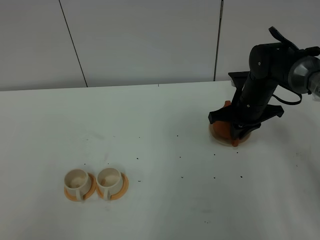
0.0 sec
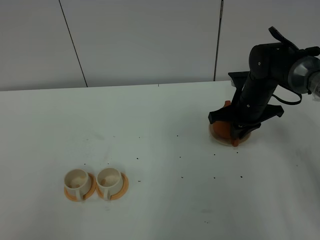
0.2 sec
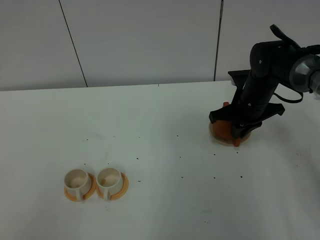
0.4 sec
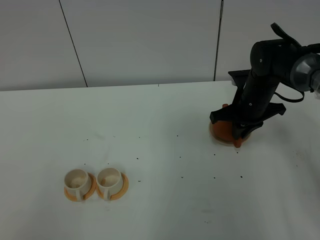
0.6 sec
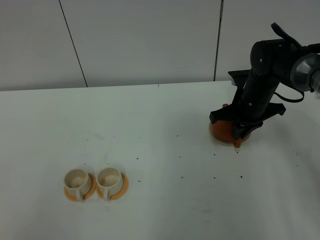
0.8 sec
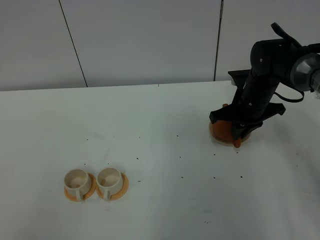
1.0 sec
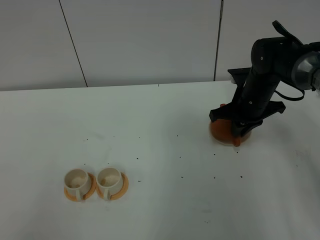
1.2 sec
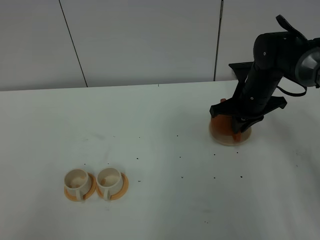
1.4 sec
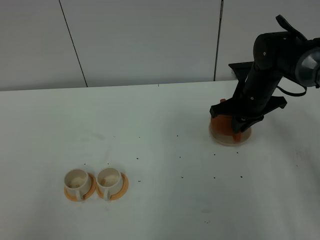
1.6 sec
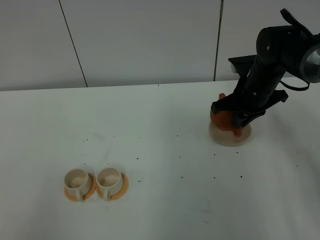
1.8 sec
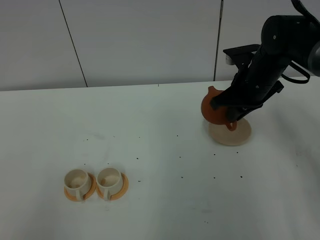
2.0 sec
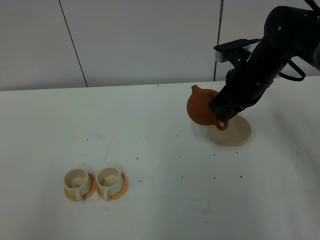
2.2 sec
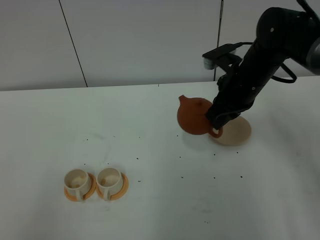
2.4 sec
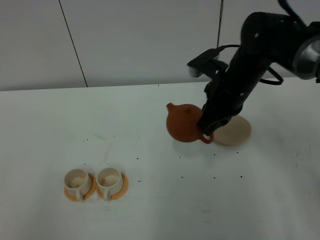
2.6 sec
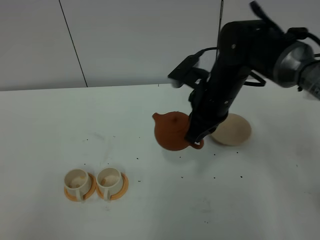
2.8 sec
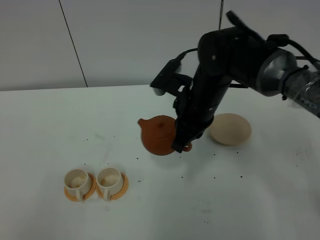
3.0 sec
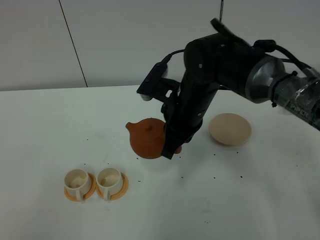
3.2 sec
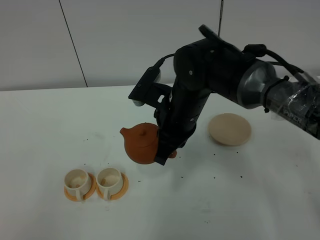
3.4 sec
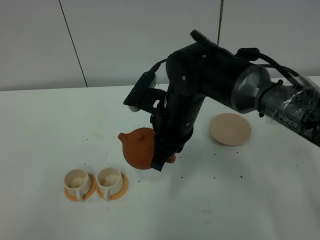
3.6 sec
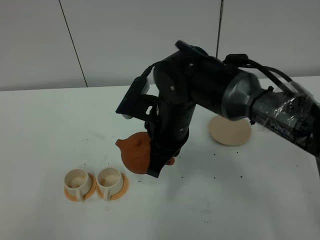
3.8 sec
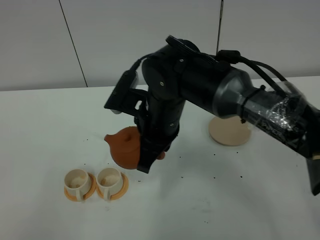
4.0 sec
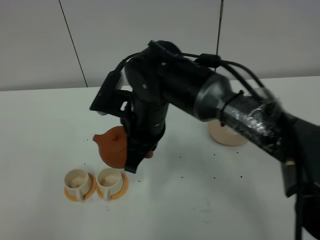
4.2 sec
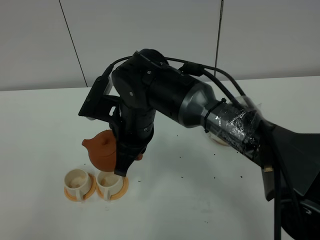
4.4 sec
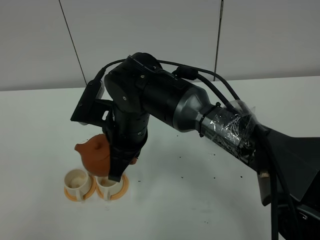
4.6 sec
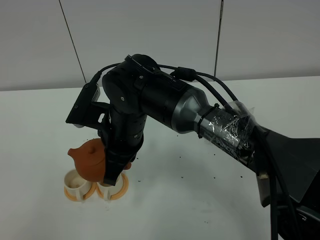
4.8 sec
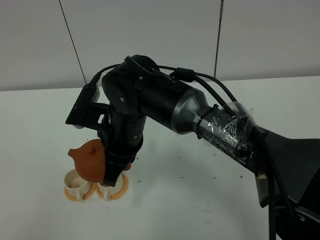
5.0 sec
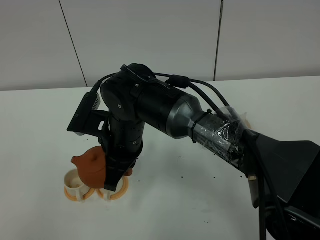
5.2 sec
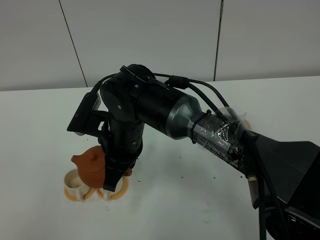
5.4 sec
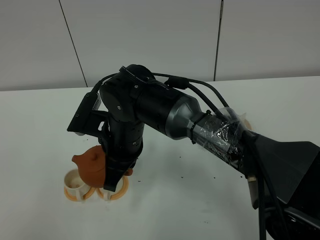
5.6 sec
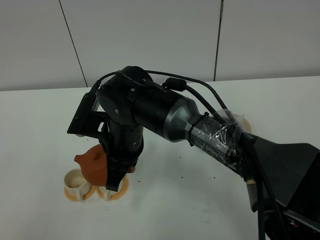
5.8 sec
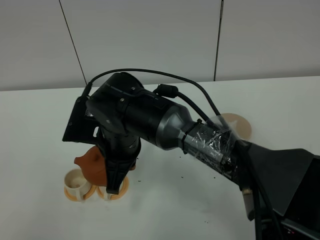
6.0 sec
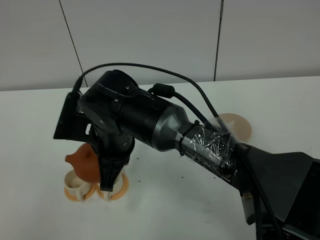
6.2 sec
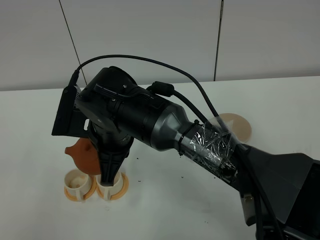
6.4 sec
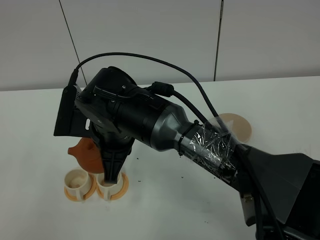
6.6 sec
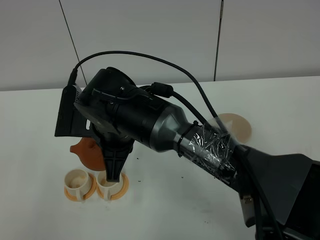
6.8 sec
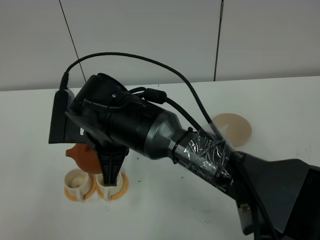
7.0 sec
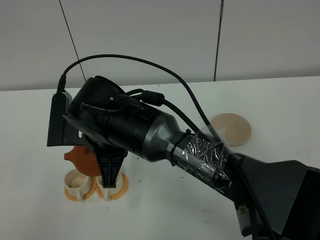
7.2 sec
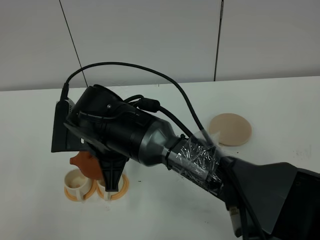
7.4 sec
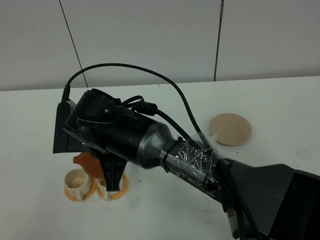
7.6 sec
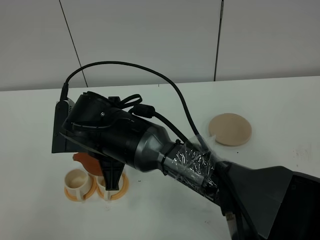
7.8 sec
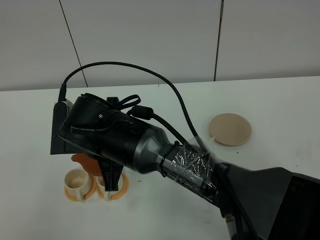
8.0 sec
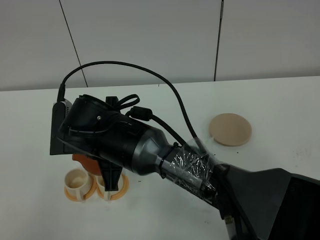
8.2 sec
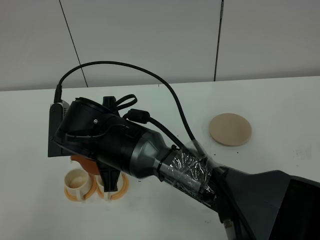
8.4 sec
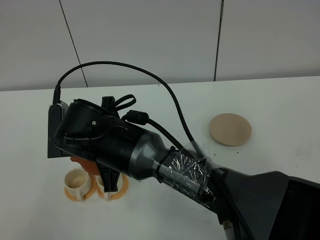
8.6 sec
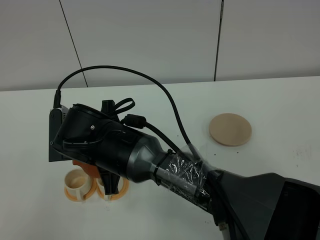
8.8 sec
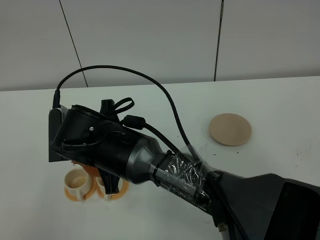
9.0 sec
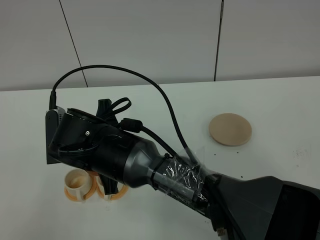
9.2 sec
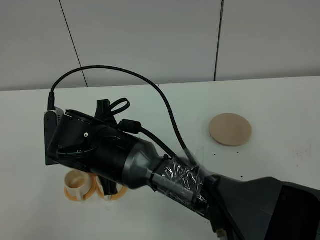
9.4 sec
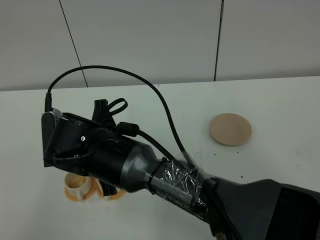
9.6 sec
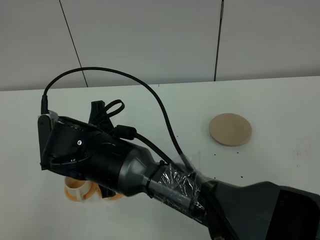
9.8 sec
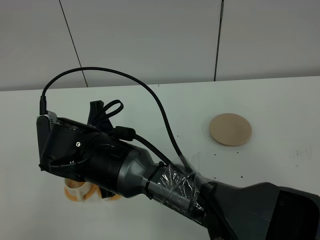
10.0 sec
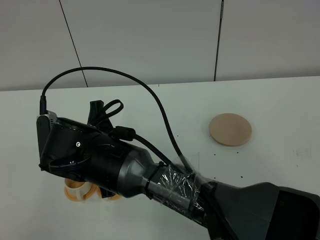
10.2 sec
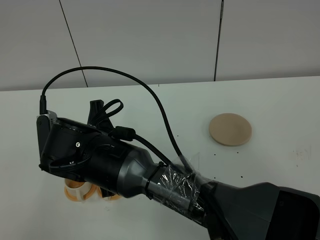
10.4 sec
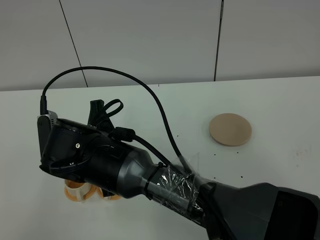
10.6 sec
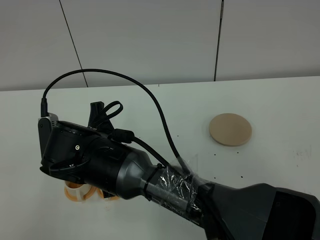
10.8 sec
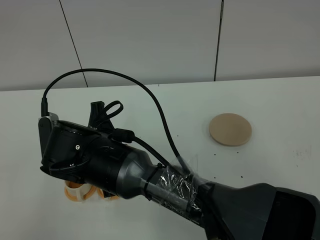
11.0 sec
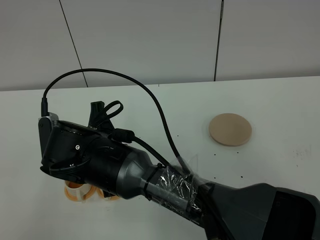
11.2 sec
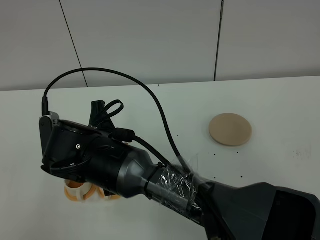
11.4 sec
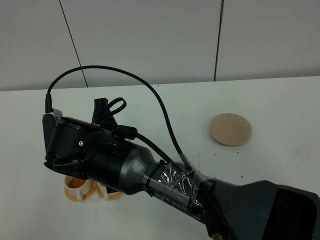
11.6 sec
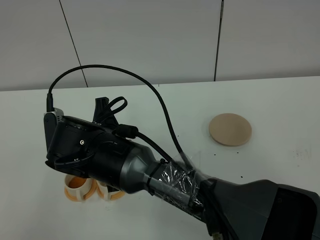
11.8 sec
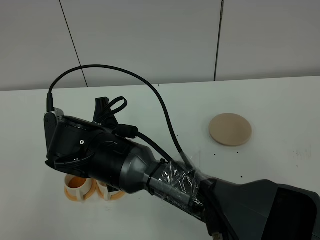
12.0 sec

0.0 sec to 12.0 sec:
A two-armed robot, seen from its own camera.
Task of the whole recording: grasp the brown teapot and pour the tea into the two white teacups one by one, put the brown teapot back in its original place.
0.0 sec to 1.6 sec: The grippers make only small movements.
1.6 sec to 3.0 sec: The right gripper shifts approximately 15 cm to the left, backward and upward.
3.0 sec to 4.4 sec: The right gripper moves to the left, some 10 cm.
6.0 sec to 7.6 sec: The grippers move only a little.
7.6 sec to 10.4 sec: The grippers stay close to where they were, moving slightly.
10.4 sec to 12.0 sec: Neither gripper changes place.

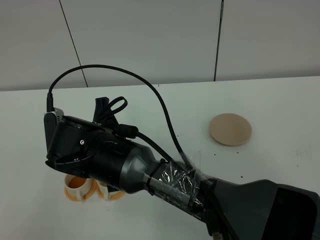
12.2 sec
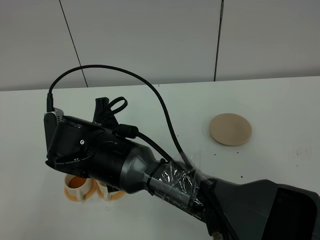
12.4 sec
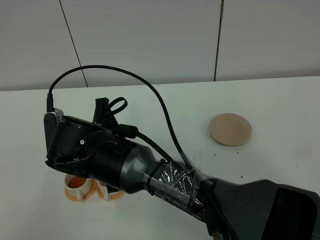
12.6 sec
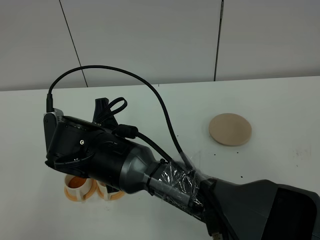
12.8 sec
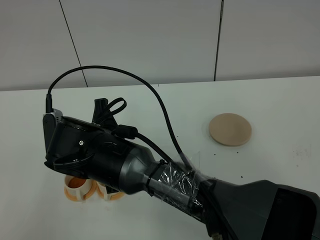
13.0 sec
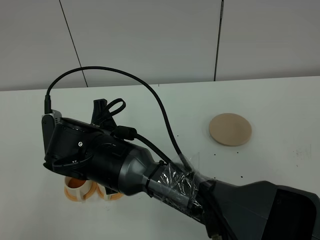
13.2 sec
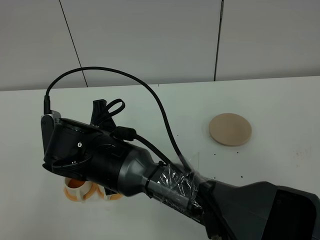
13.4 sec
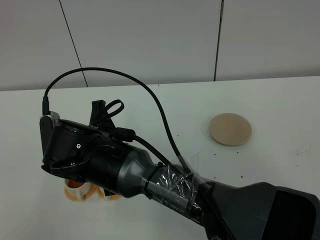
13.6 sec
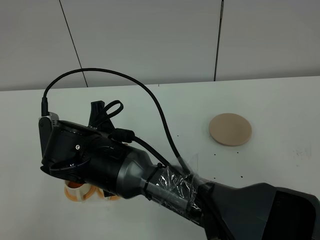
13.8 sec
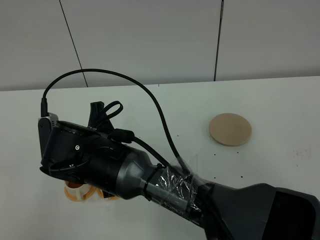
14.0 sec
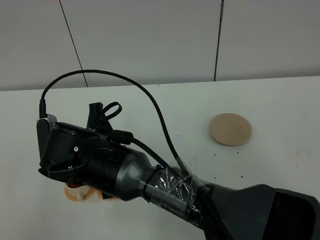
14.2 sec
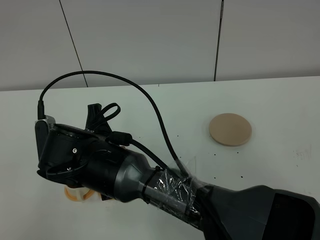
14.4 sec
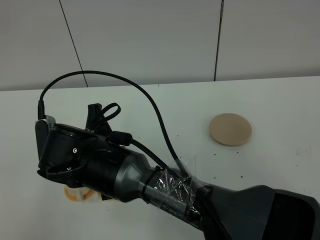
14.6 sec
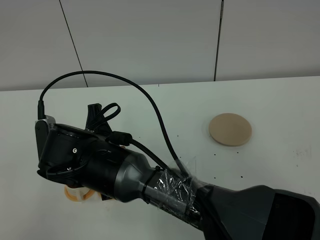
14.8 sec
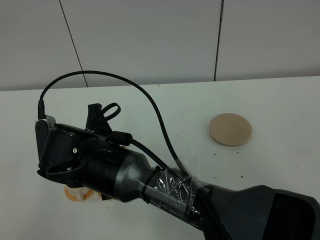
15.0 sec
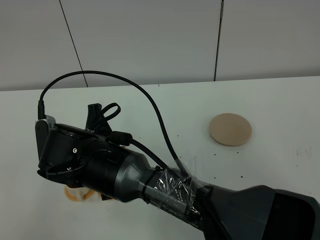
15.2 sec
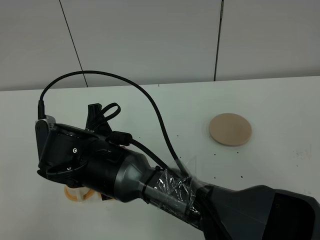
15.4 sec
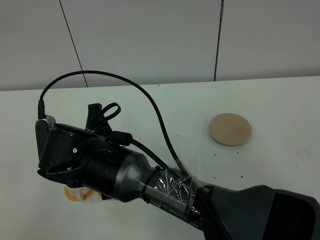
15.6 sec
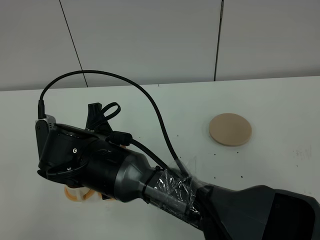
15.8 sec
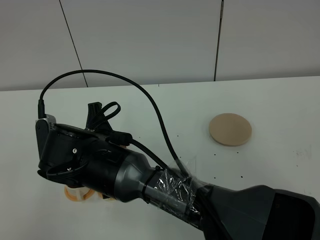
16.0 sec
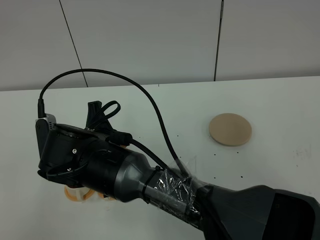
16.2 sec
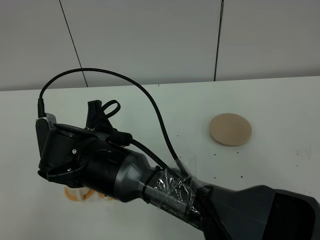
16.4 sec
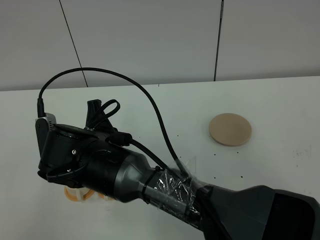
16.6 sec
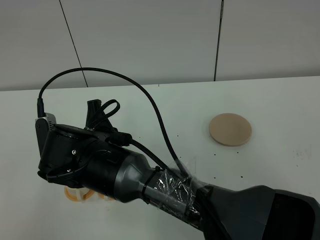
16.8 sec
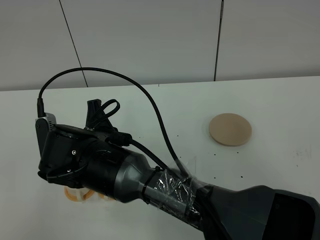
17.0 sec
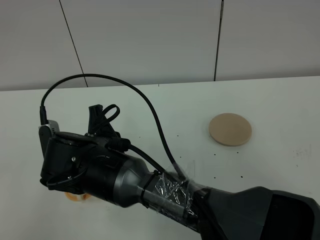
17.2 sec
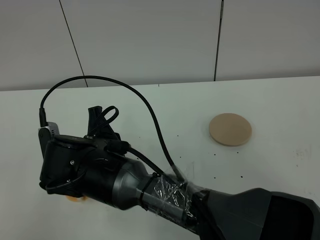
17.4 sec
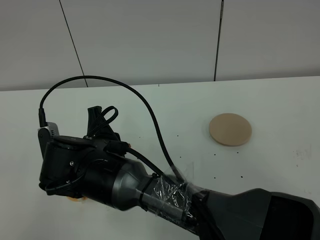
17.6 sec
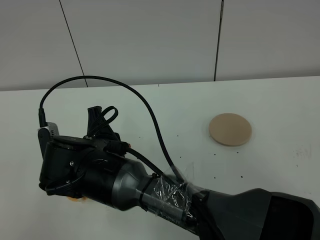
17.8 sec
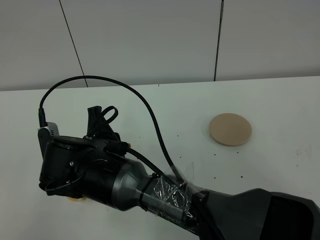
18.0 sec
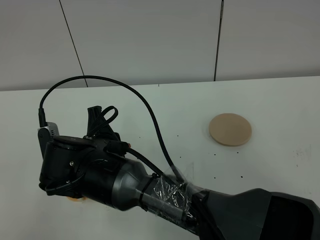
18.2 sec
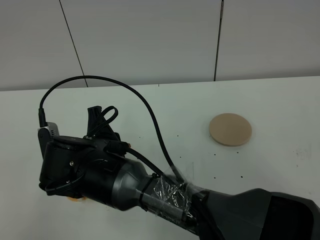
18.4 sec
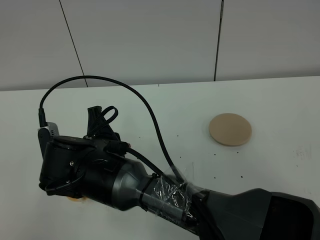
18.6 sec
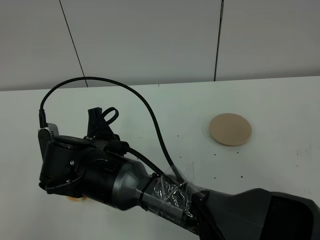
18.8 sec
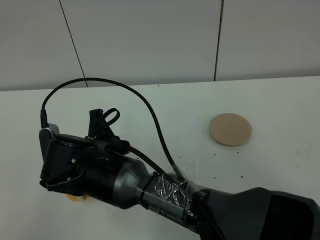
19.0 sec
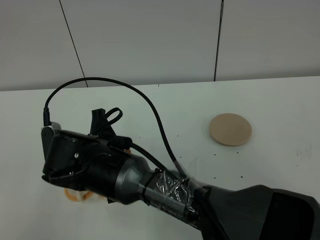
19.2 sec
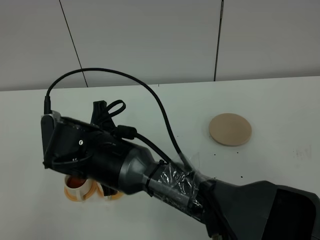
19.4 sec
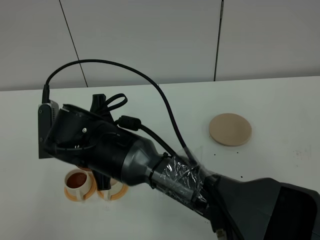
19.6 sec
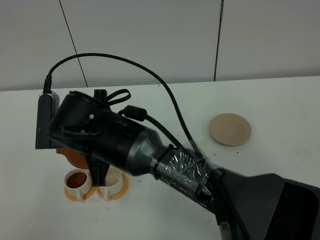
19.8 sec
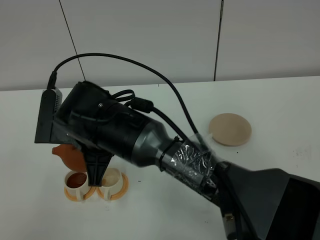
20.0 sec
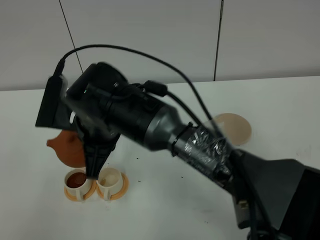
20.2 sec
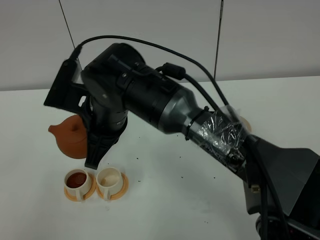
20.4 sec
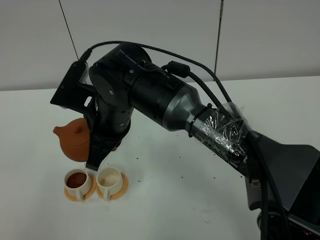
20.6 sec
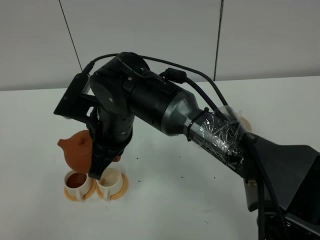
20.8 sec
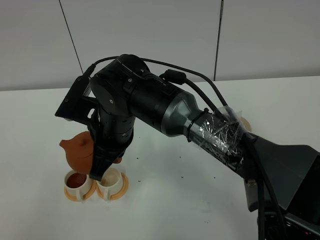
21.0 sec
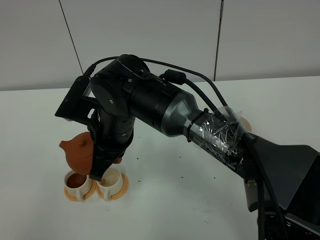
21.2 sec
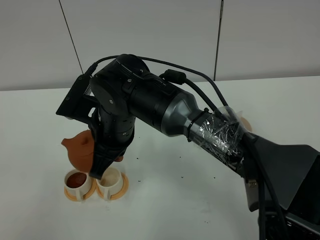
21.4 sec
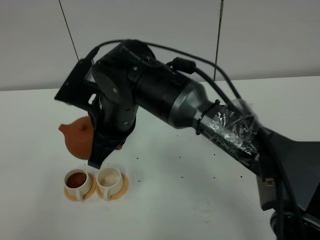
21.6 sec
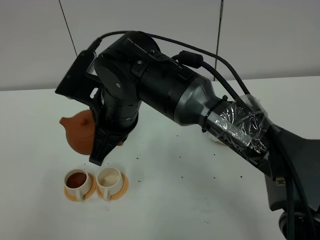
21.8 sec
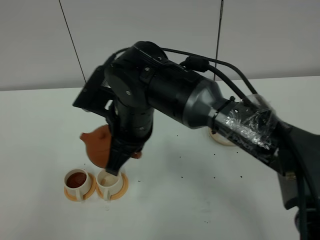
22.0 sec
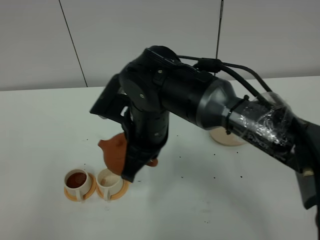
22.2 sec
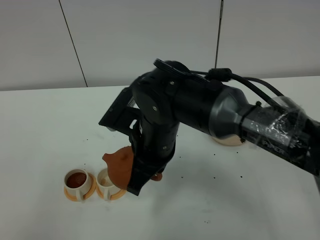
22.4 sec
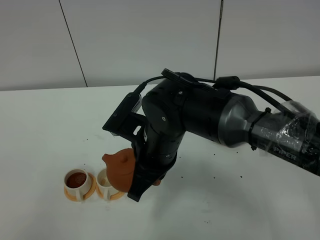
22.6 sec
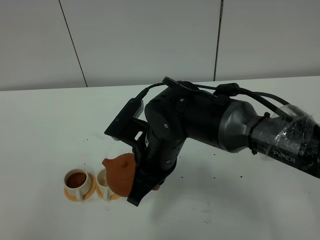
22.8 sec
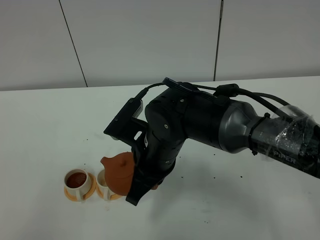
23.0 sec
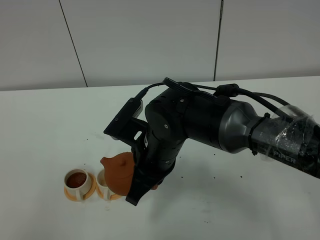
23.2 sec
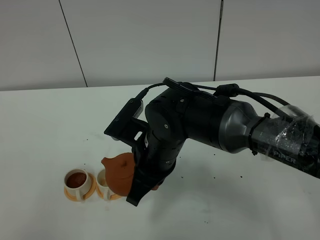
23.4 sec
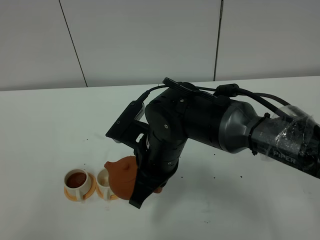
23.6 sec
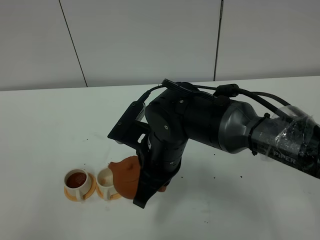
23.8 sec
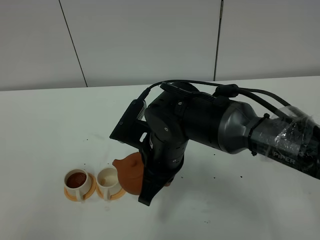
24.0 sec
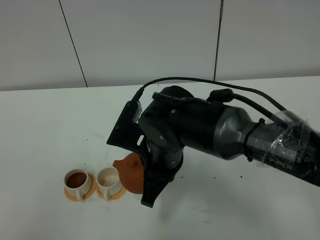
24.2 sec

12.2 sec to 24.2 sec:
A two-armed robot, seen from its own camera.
Task of the whole recording: grasp the brown teapot and pour the tea into the two white teacups one by one, put the brown teapot back in its original place.
Step, 12.2 sec to 21.2 sec: Pour tea into the teacup with the right gripper.
12.2 sec to 13.8 sec: Both grippers stay put.
13.8 sec to 16.6 sec: The two grippers keep their place.
16.6 sec to 18.2 sec: Both grippers stay about where they are.
21.2 sec to 22.6 sec: The right gripper shifts some 5 cm to the right.
22.6 sec to 24.2 sec: There are only small adjustments of the grippers.
